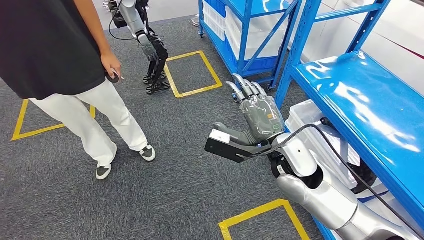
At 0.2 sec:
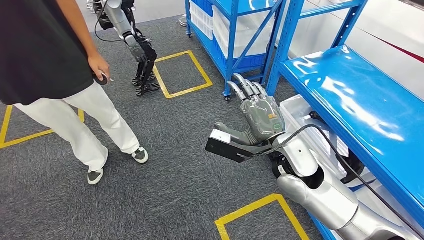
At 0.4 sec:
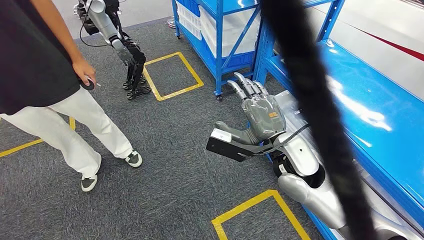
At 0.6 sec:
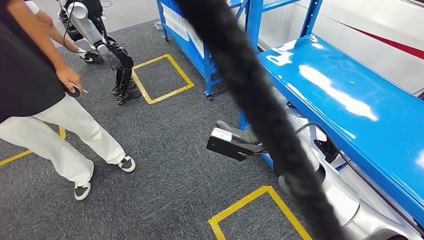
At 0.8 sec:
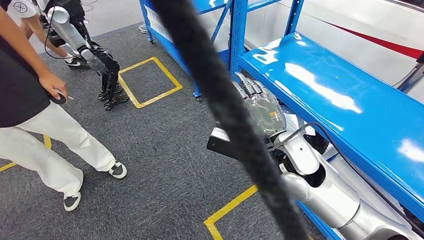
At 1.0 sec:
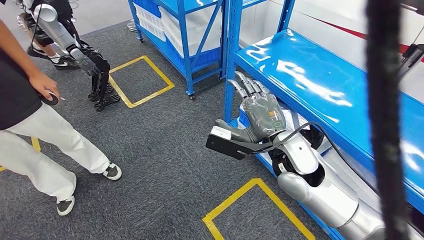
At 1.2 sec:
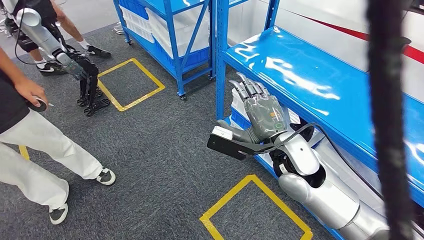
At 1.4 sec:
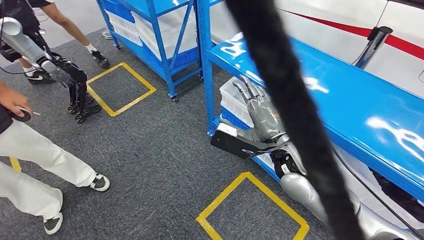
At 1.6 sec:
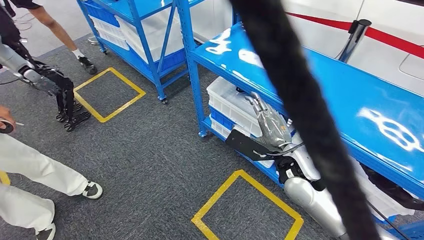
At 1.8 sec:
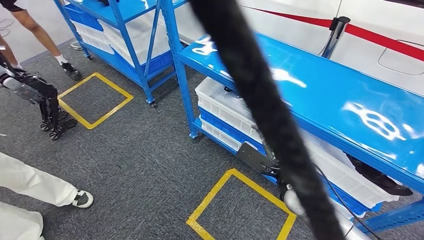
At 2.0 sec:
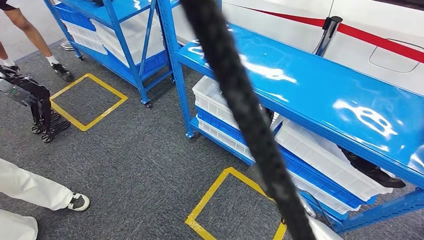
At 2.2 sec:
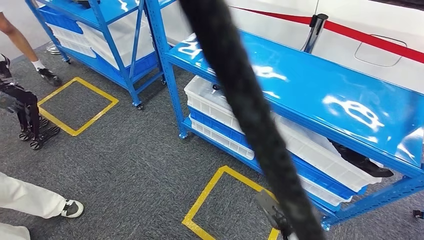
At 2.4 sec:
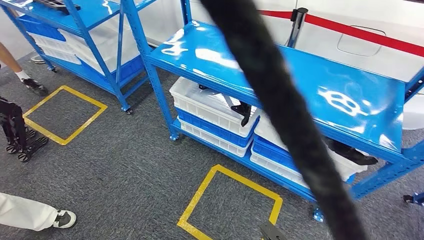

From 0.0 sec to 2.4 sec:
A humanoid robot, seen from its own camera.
Step, from 0.0 sec to 2.4 sec: Move to the initial position of the shelf.
